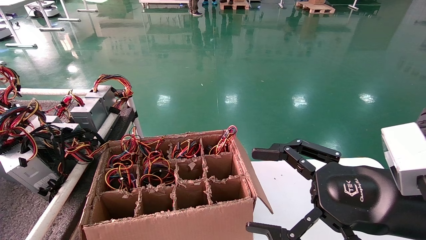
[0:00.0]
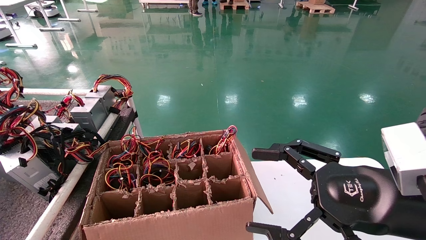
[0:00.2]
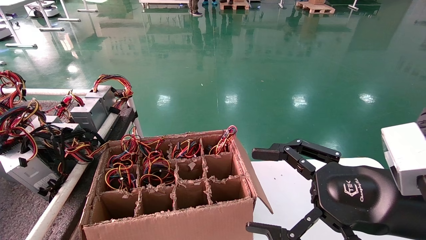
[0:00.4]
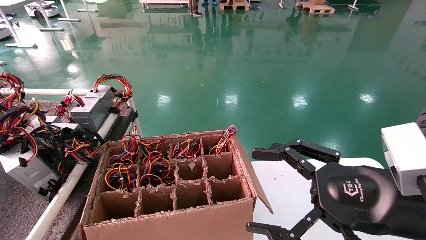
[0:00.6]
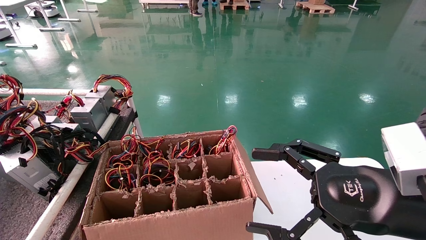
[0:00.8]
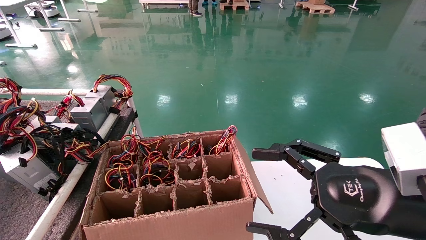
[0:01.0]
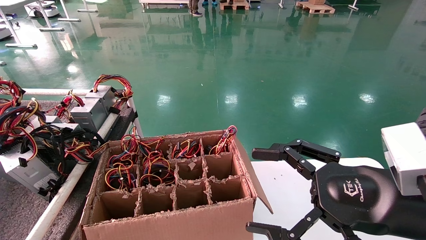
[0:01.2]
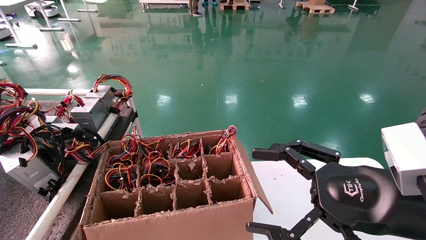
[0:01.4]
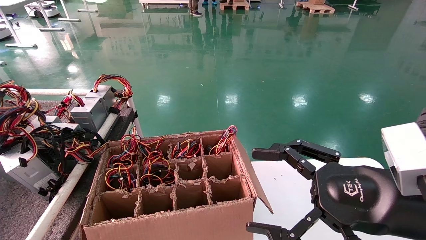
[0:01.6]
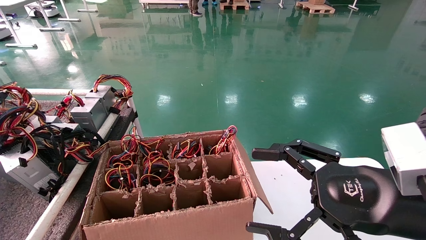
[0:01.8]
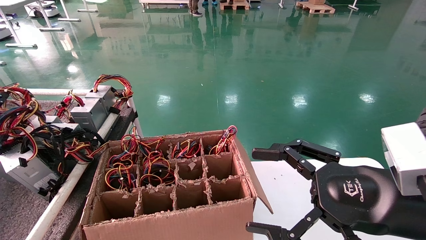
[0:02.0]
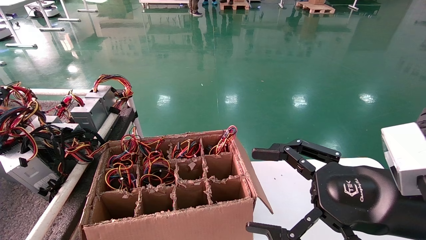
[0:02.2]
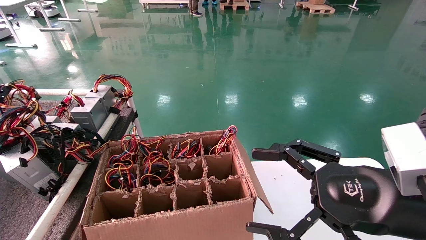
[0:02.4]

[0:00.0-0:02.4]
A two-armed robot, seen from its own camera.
0:01.2 to 0:02.4: The left gripper opens.
